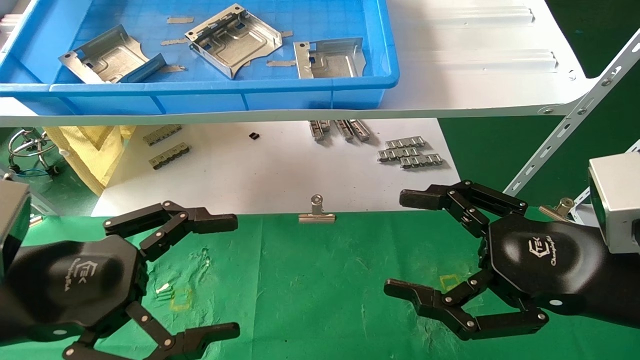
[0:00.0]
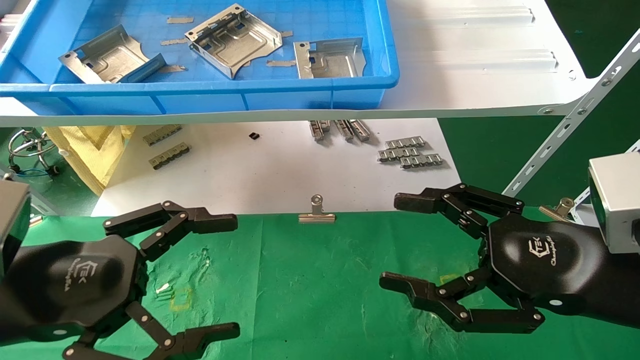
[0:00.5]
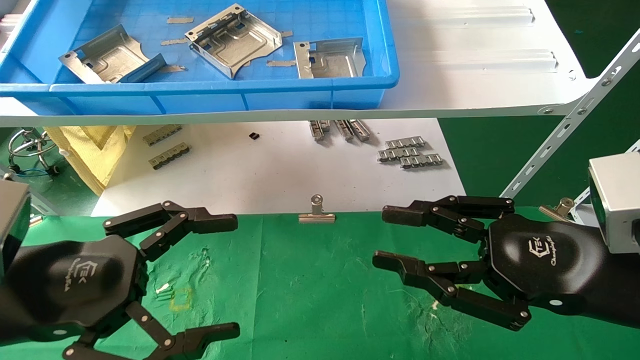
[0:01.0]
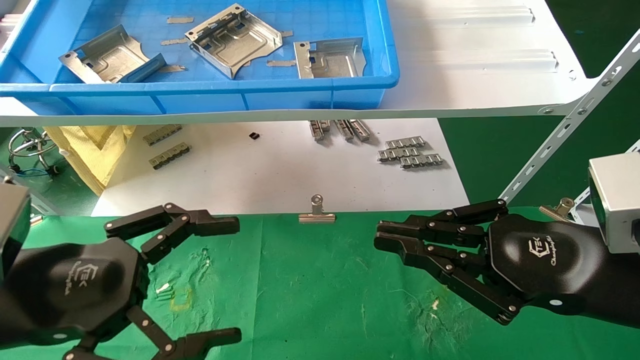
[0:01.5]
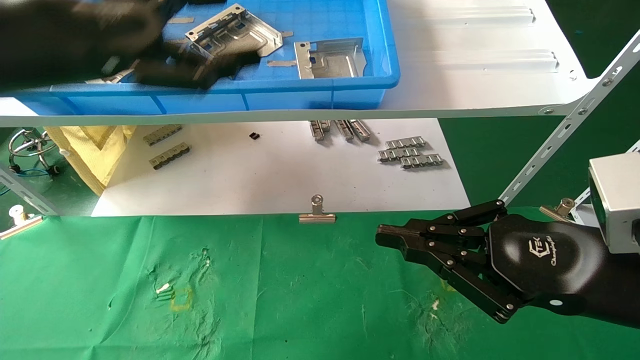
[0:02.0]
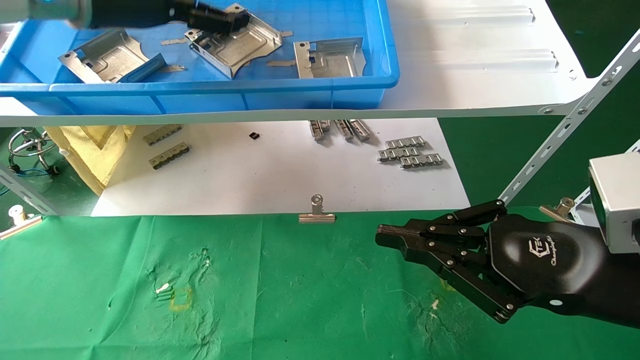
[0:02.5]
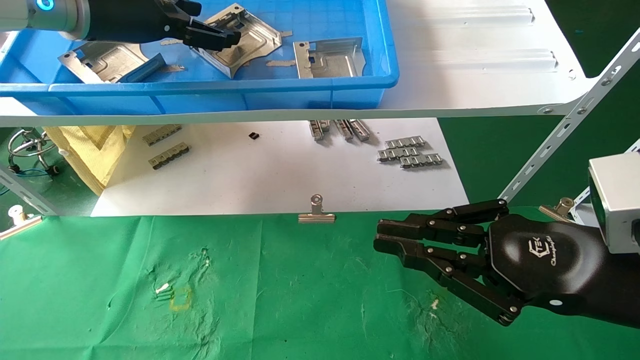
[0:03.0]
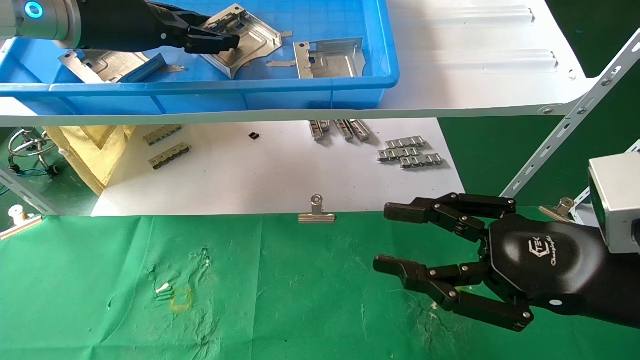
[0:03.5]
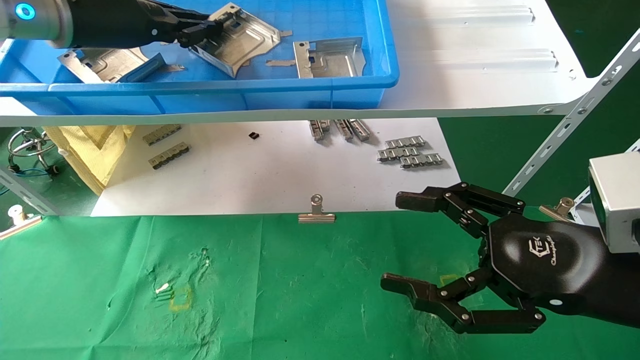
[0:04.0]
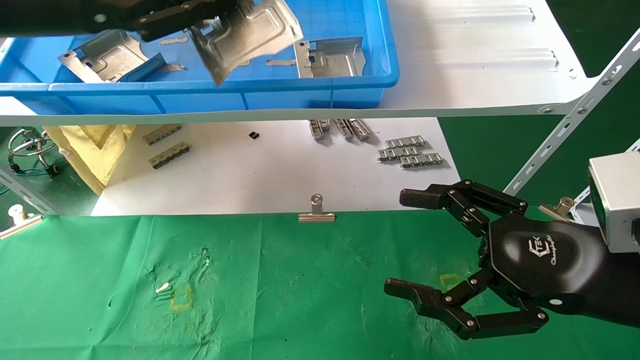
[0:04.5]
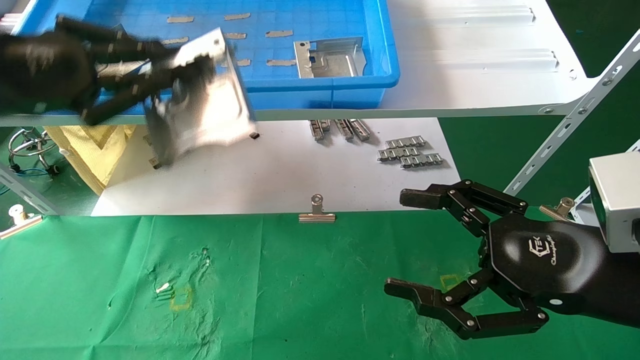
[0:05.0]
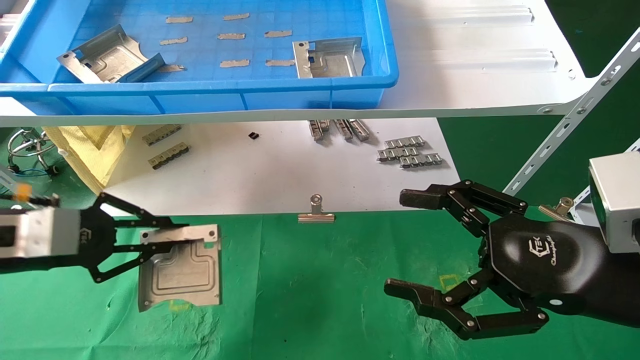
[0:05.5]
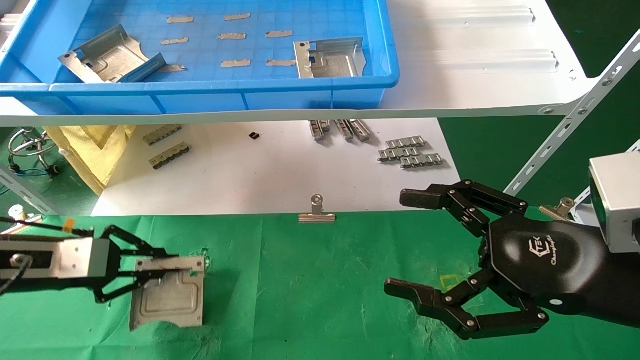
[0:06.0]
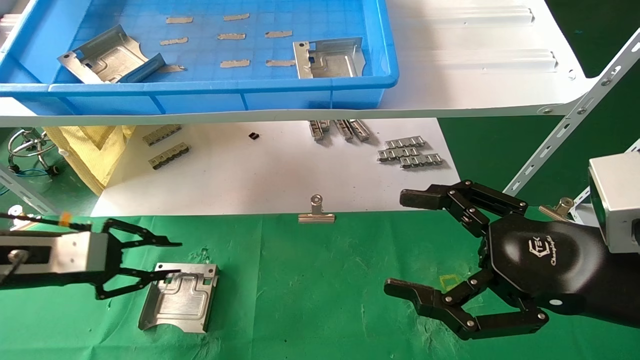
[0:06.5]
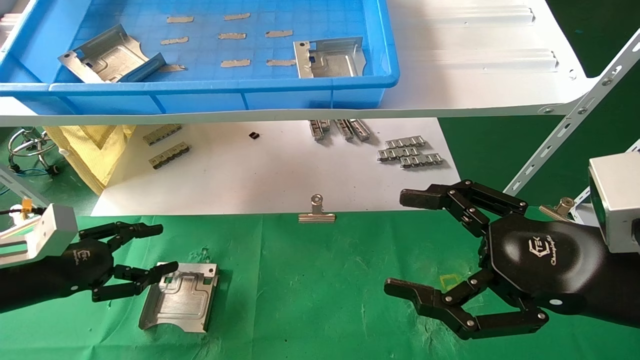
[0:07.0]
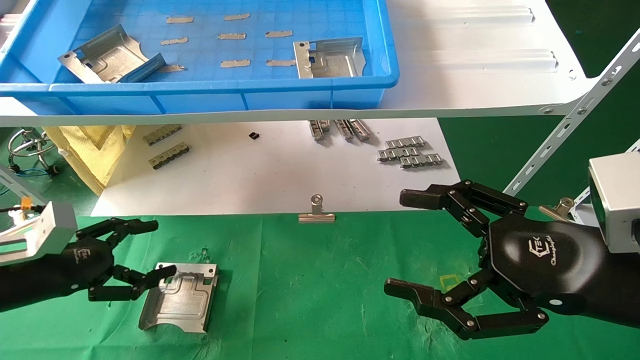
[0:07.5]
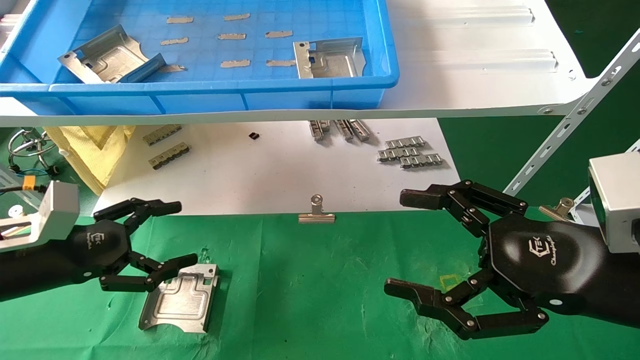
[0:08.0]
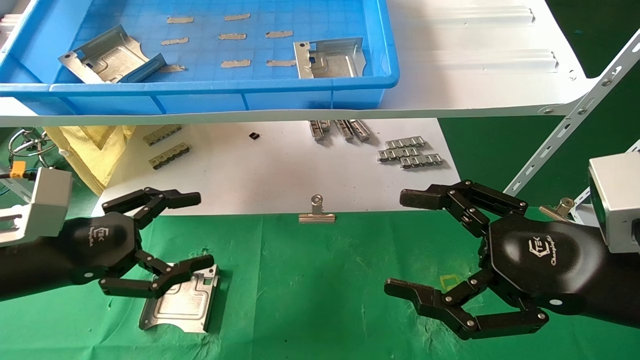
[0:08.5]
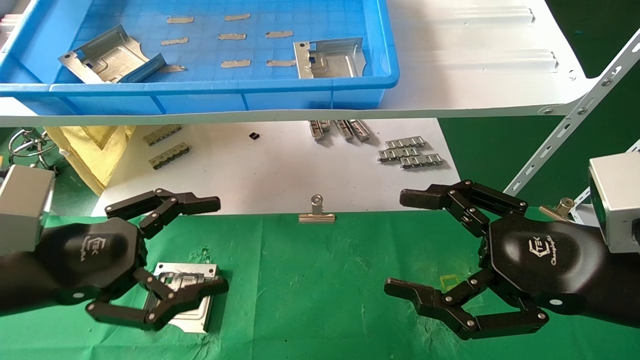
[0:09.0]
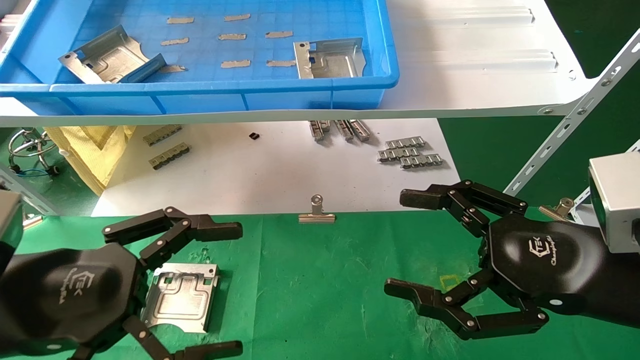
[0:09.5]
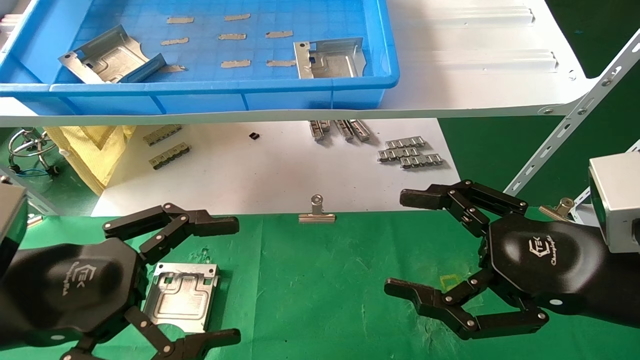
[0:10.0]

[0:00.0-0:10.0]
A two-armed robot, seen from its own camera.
Task of the whole recording: use the mechanical arm to pick up the parts and place them on the table.
Step, 0:02.0 to 0:03.5: Pick up the hard drive bracket from the feeding area.
Step, 0:04.0 to 0:06.5: Place the hard drive bracket into the box.
0:00.0 to 0:02.0: The left gripper is displaced upward and forward by some 20 cm; the right gripper closes.
0:02.0 to 0:04.0: The right gripper opens its fingers; the left gripper goes approximately 10 cm forward and upward, and closes up.
0:04.0 to 0:06.0: The left gripper heads downward and to the left, covering about 30 cm.
0:06.0 to 0:08.0: The left gripper opens up.
0:08.0 to 0:10.0: The left gripper is displaced backward, to the right and upward by roughly 15 cm.
